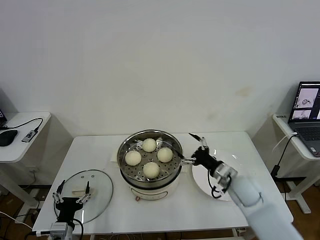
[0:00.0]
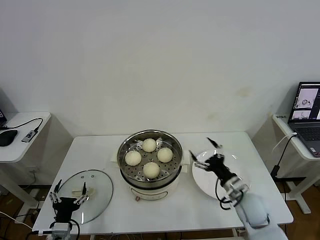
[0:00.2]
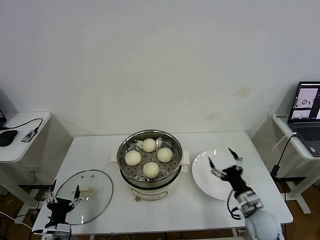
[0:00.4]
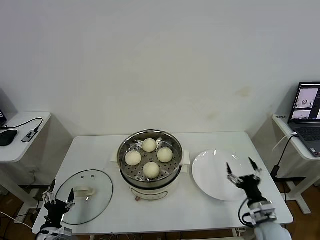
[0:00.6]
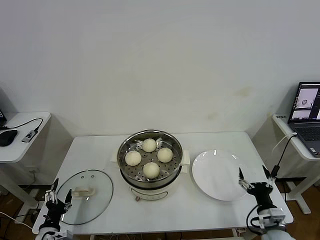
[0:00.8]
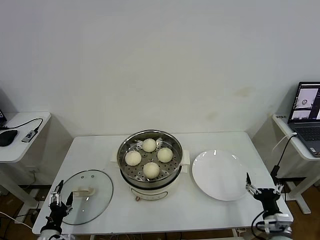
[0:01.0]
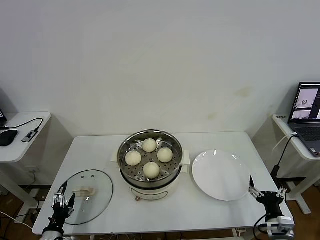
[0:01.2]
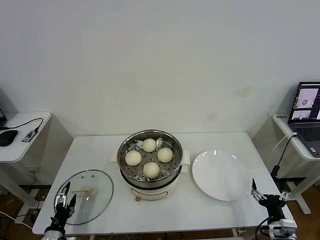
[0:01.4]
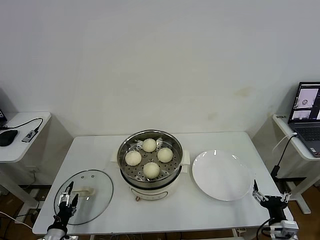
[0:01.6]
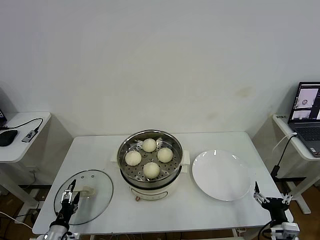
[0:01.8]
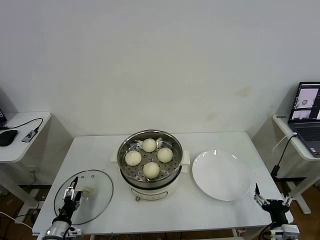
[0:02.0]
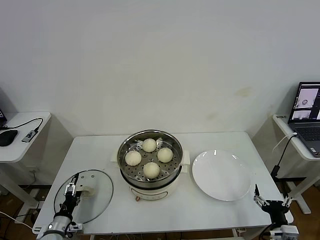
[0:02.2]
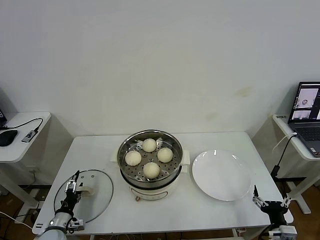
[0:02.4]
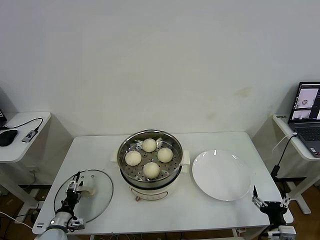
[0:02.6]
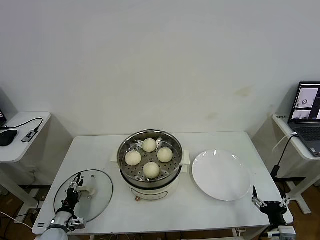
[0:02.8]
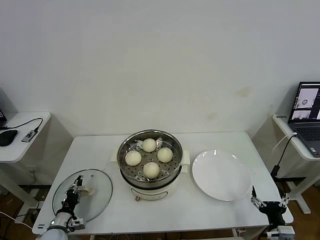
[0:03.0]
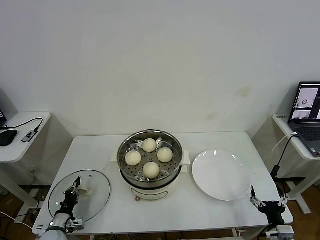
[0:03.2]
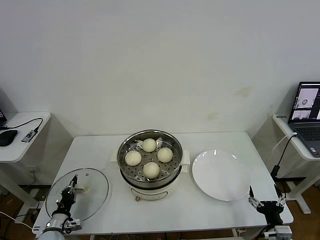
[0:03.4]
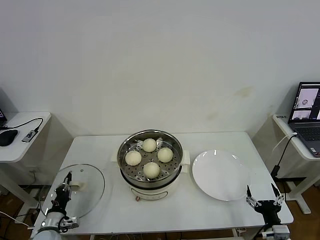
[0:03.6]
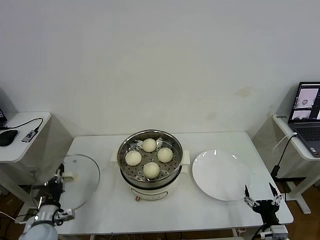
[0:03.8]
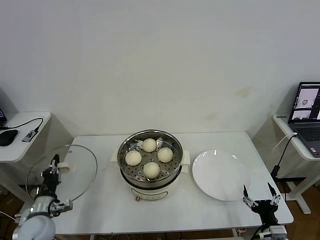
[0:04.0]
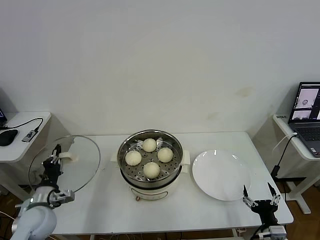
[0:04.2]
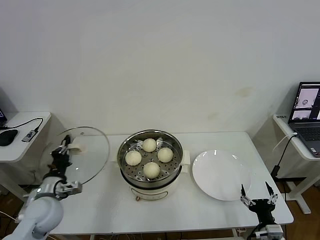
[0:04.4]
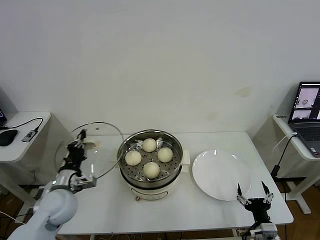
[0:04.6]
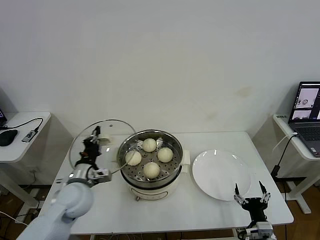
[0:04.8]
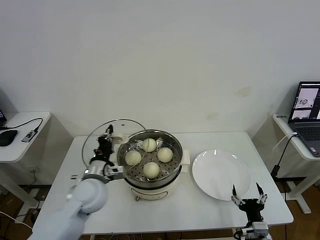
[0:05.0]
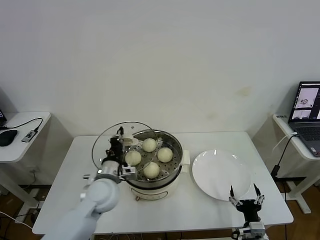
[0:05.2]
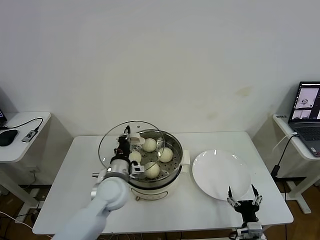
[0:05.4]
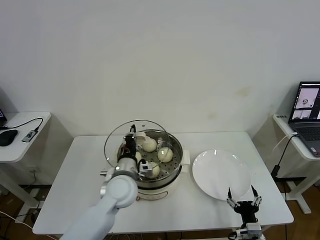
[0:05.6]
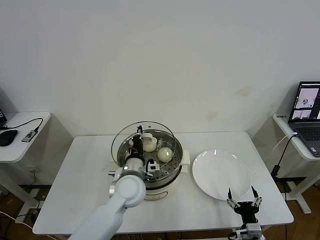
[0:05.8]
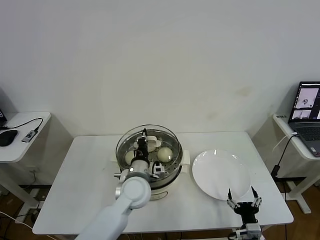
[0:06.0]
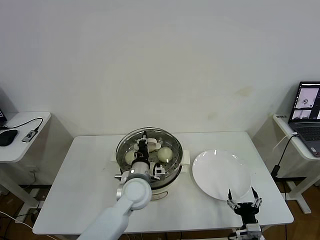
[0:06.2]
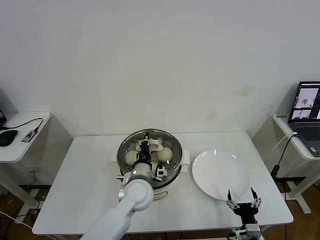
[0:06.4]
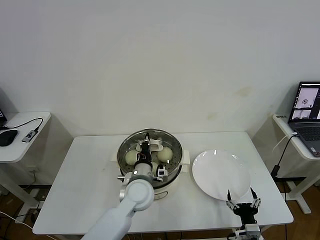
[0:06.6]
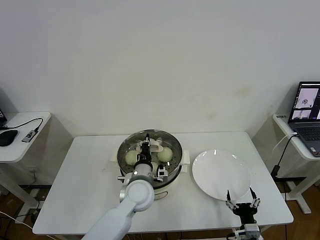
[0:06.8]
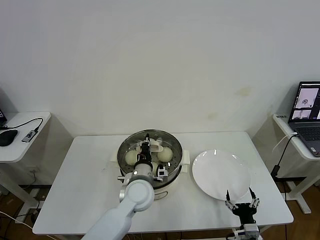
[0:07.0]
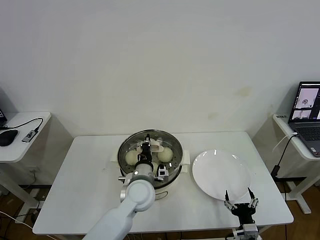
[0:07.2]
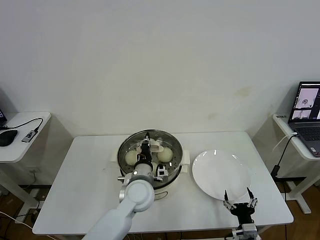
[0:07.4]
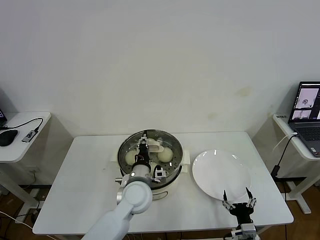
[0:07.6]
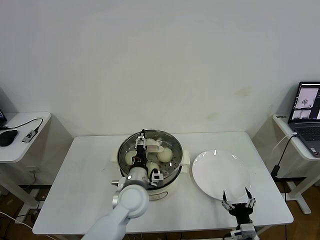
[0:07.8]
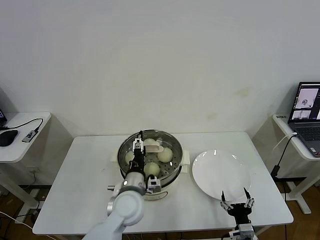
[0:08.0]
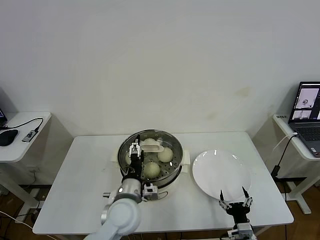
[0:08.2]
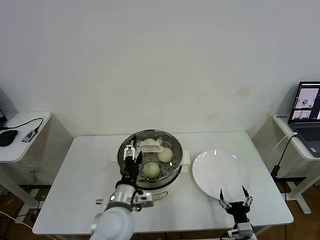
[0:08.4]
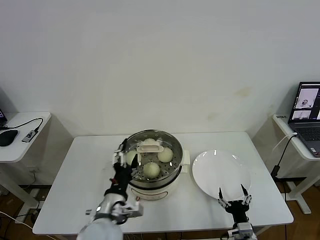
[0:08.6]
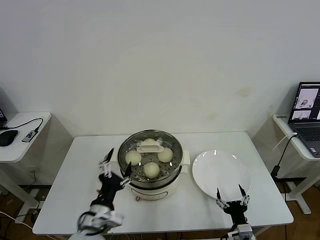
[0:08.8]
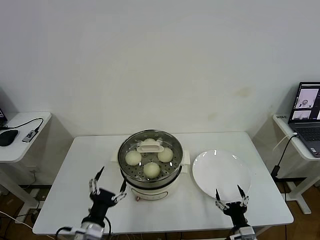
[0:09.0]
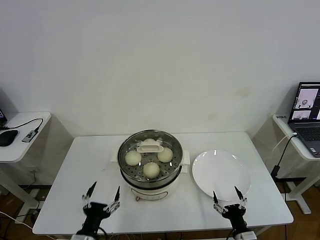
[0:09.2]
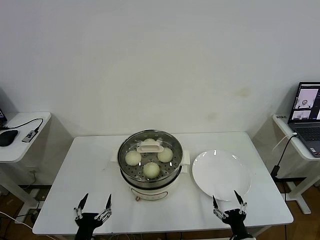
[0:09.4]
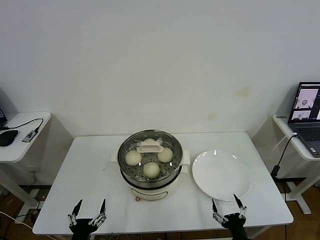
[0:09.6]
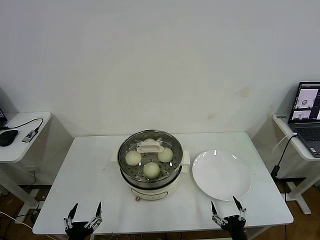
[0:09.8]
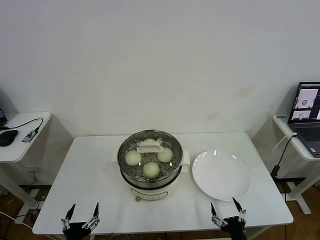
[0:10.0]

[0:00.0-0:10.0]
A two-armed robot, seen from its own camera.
Task of the whole recording: take steamed baozi put them in steamer then cover it.
Step, 0:00.0 to 0:03.2: Grasp the pot lid with left gripper.
Step, 0:03.6 to 0:08.0: Place the pot lid on the steamer with left gripper.
0:00.0 to 0:01.4: The left gripper goes about 10 cm to the left and downward, while the right gripper travels backward, to the right and downward by approximately 25 cm.
0:01.4 to 0:02.8: The left gripper travels forward by some 10 cm, and closes up.
0:02.8 to 0:04.2: The left gripper heads upward, covering about 15 cm, and closes up.
0:04.2 to 0:05.8: The left gripper travels to the right by approximately 25 cm. Meanwhile the right gripper heads to the left, covering approximately 5 cm.
0:05.8 to 0:07.2: The grippers move only a little.
0:07.2 to 0:08.6: The left gripper is displaced backward and to the left by approximately 15 cm, and opens up.
0:08.6 to 0:10.0: The right gripper heads backward, covering approximately 5 cm. Meanwhile the left gripper is displaced to the left, backward and downward by approximately 25 cm.

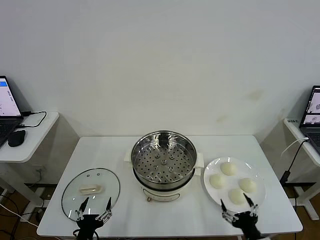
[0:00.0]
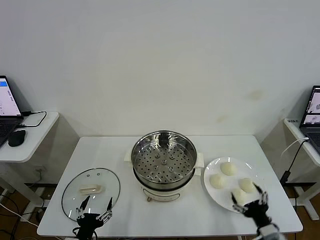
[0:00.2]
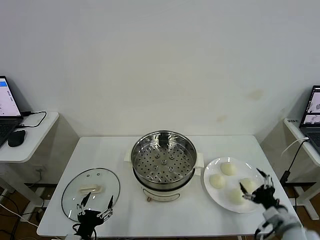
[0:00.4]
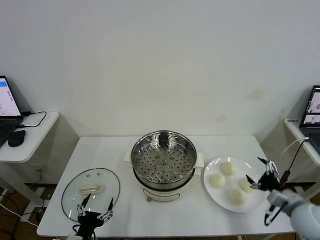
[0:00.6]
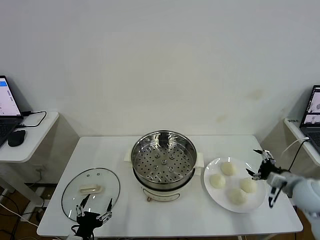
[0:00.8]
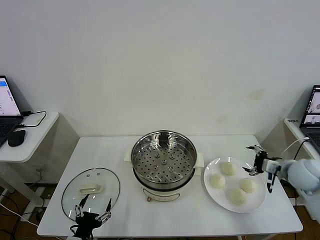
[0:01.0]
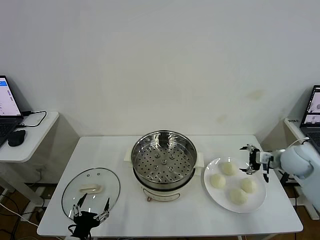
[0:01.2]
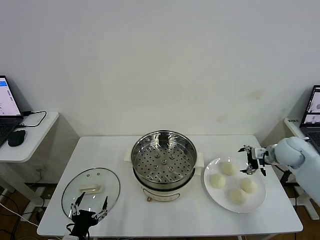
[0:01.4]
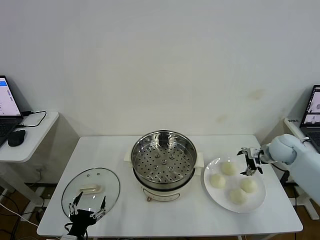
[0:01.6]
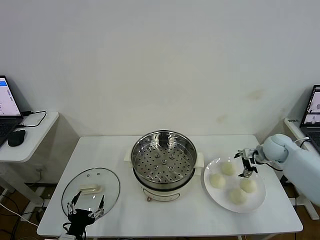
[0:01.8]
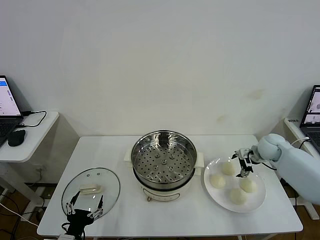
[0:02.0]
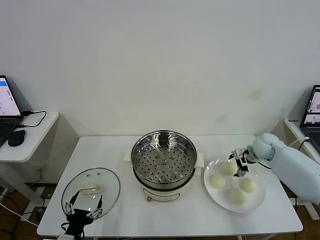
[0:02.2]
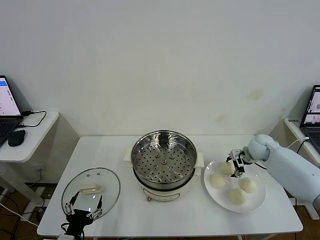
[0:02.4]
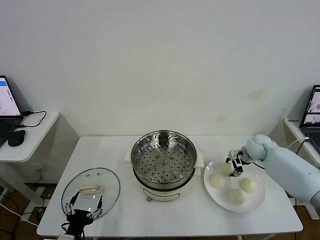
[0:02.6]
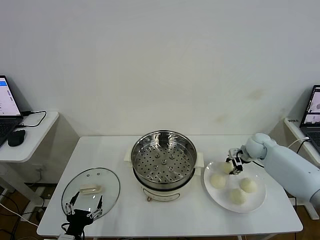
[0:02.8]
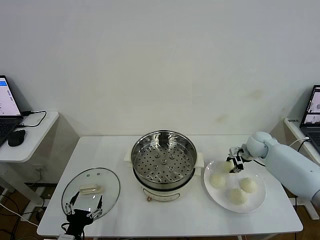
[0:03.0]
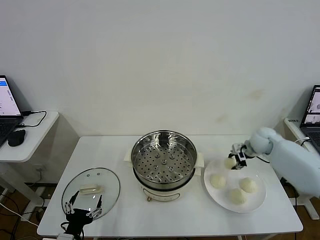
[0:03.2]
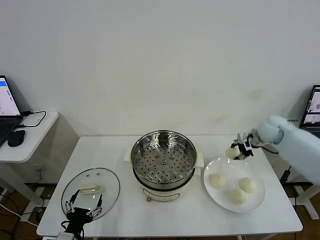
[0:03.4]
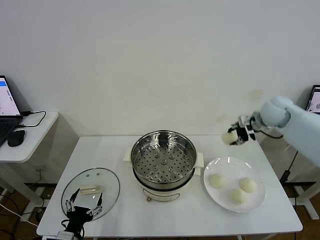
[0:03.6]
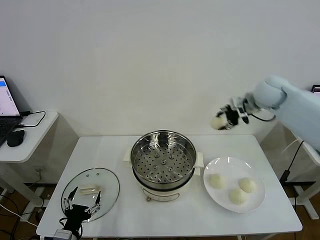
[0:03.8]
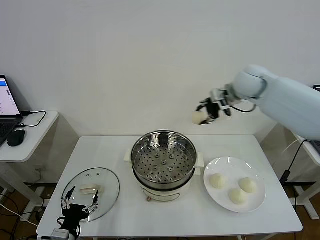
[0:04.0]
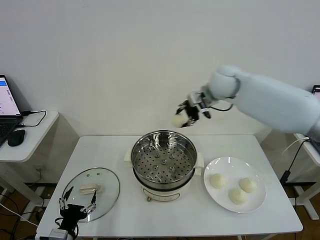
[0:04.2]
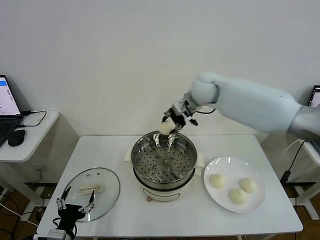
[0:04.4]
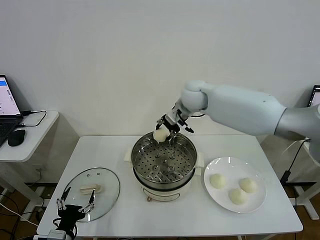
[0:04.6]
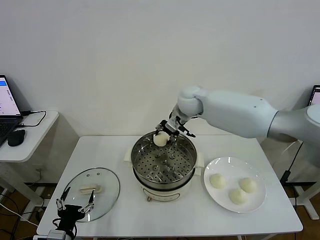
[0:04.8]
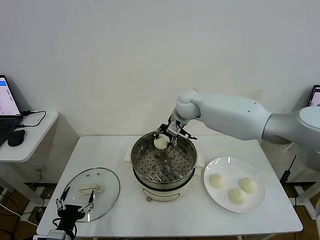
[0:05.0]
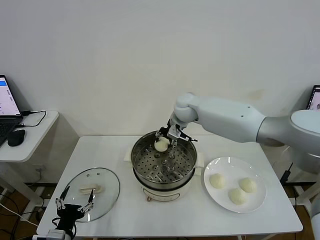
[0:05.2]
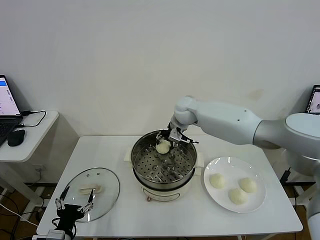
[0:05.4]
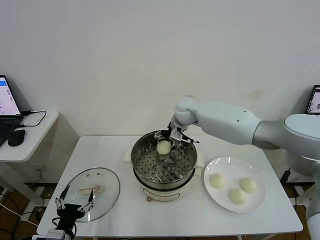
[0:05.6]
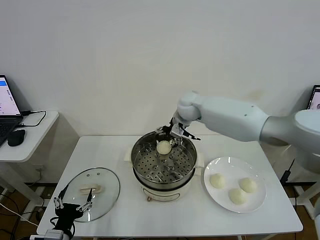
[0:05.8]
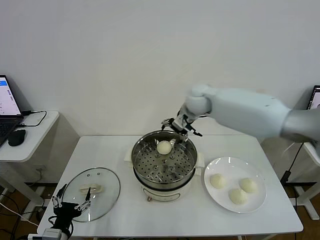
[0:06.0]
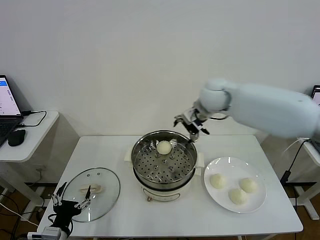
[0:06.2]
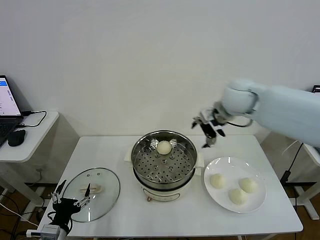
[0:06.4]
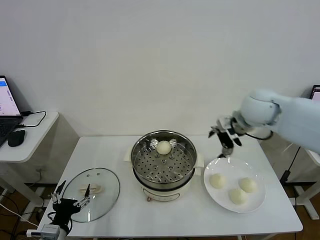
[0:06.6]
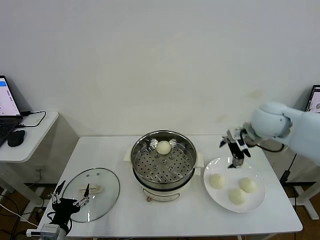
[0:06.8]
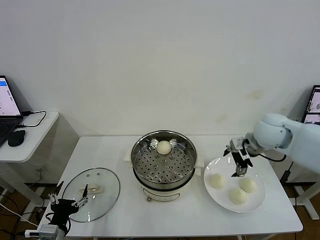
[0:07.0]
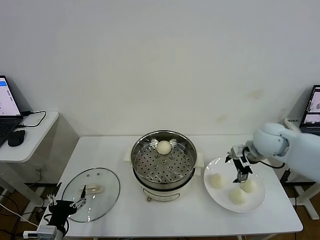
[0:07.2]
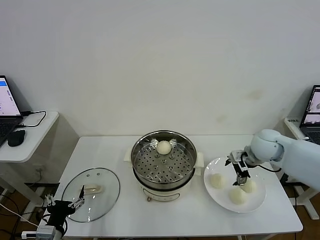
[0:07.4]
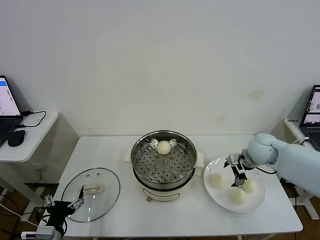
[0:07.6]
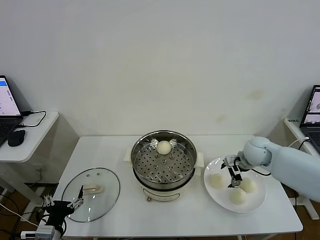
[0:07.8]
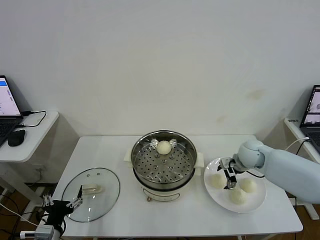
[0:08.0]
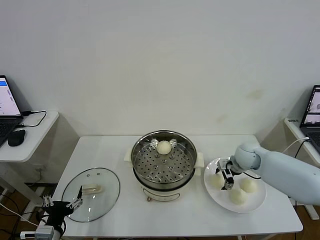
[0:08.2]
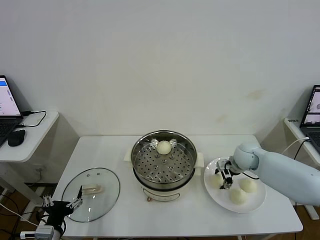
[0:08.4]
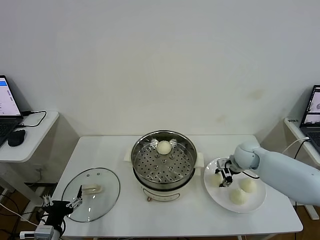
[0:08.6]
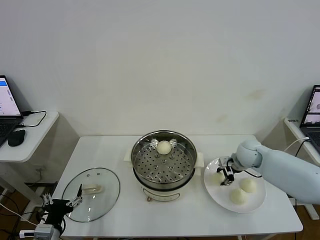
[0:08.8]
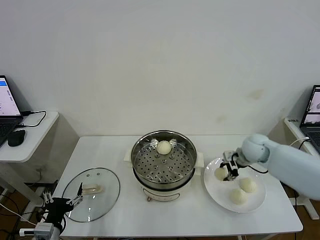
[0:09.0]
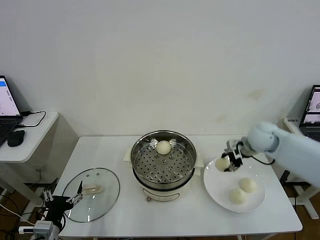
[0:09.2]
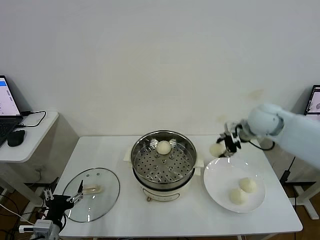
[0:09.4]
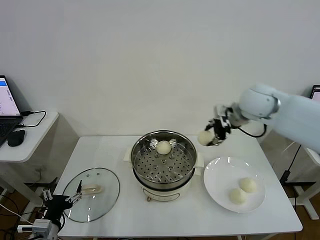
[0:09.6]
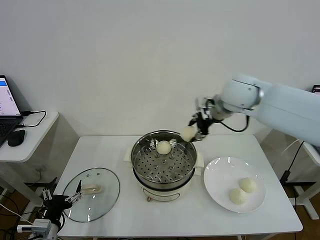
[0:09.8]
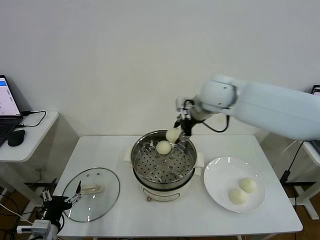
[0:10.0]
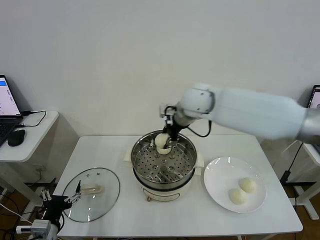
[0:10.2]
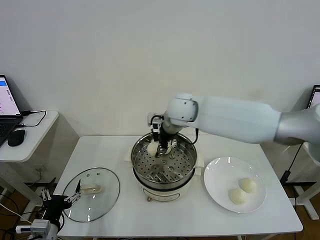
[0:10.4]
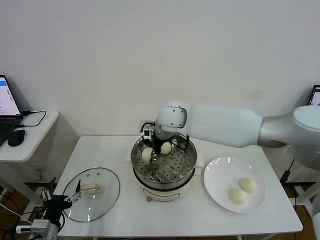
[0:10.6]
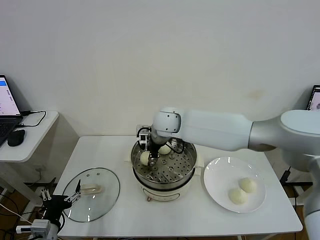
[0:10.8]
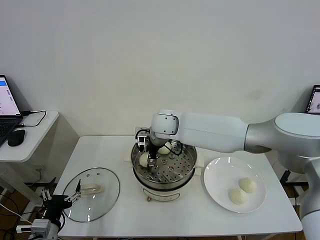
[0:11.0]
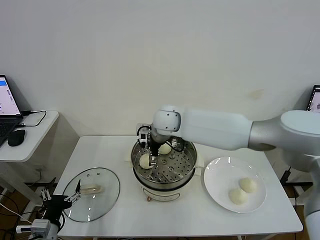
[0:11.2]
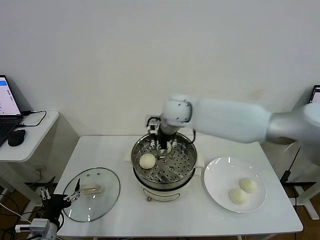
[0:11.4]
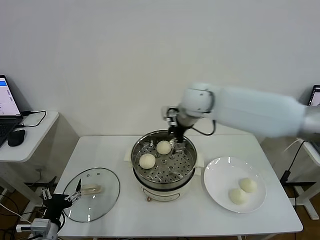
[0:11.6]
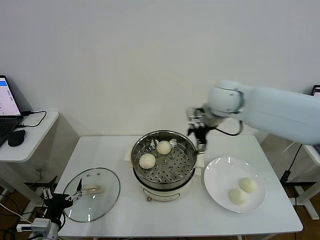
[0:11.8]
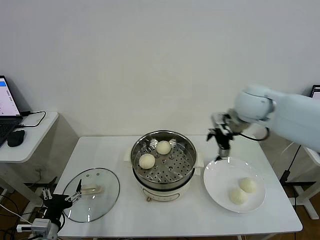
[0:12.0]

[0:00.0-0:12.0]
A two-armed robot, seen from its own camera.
Task of the whole recording: take steamed baozi put them in steamer then cover it.
Step, 0:00.0 to 0:02.6: Grasp the baozi in the plate with right gripper.
Step, 0:02.8 to 0:05.6: Place the baozi on the steamer with right gripper.
Step, 0:05.8 to 0:08.4: Grasp the baozi in the plate with right gripper.
Step, 0:08.6 to 0:11.0: Place the baozi on the steamer with right gripper.
0:01.6 to 0:03.0: The right gripper changes place by about 5 cm, and closes up.
0:03.0 to 0:04.4: The right gripper travels to the left and upward by some 35 cm.
0:04.4 to 0:06.0: The right gripper goes downward and returns, some 10 cm each way, and opens up.
0:06.0 to 0:07.6: The right gripper is displaced to the right, downward and backward by approximately 25 cm.
0:07.6 to 0:09.0: The right gripper closes up.
0:09.0 to 0:10.4: The right gripper travels to the left by some 30 cm.
0:10.4 to 0:12.0: The right gripper travels to the right by some 25 cm, and opens.
